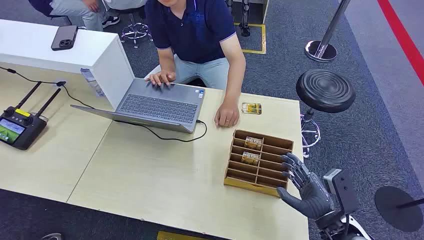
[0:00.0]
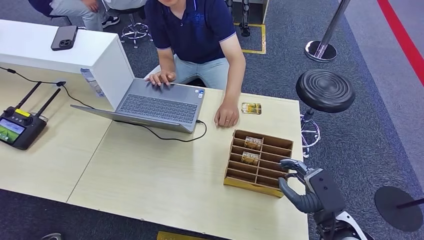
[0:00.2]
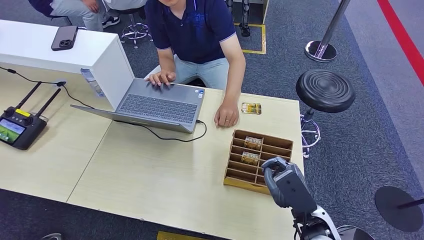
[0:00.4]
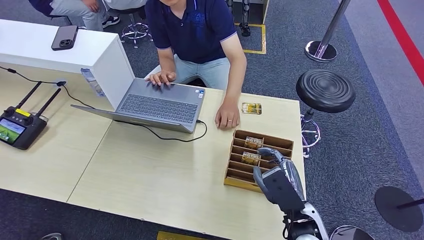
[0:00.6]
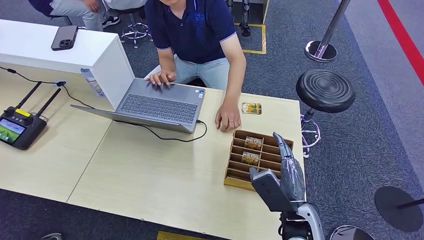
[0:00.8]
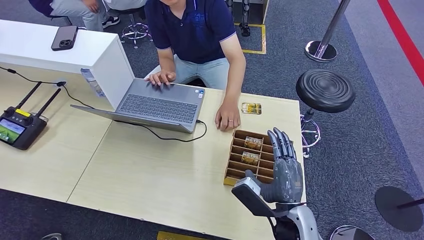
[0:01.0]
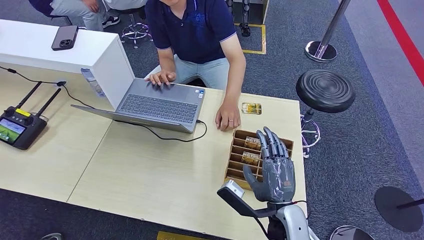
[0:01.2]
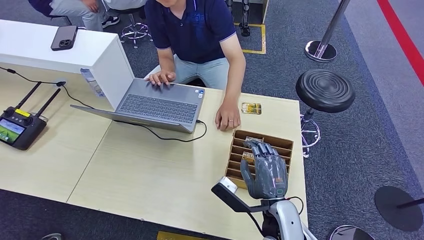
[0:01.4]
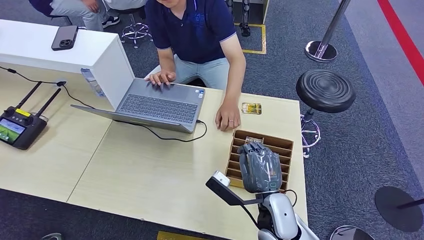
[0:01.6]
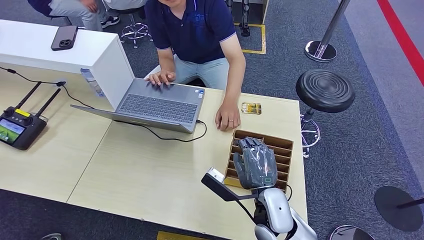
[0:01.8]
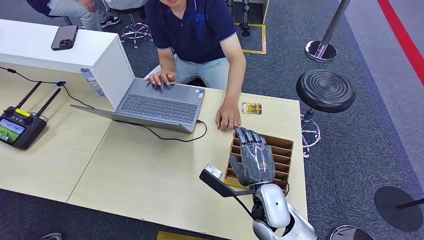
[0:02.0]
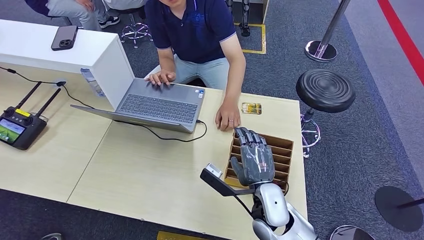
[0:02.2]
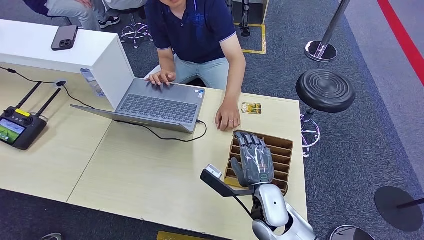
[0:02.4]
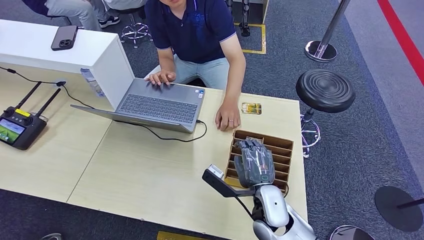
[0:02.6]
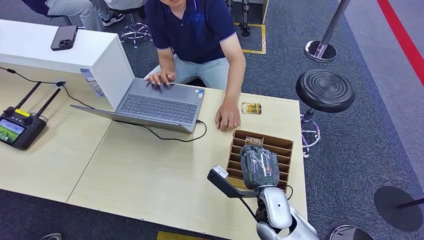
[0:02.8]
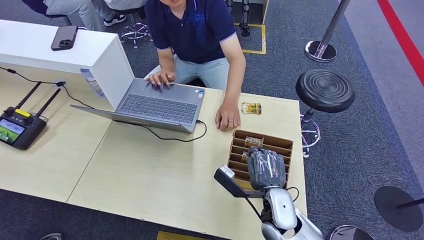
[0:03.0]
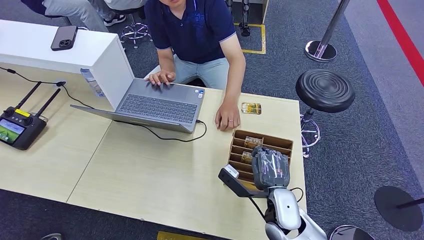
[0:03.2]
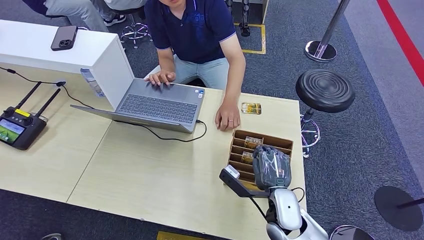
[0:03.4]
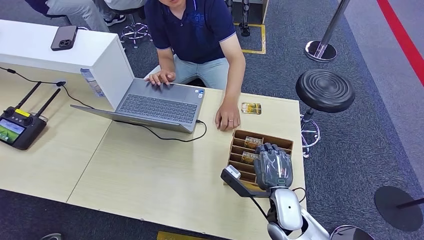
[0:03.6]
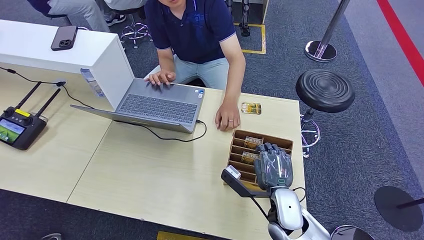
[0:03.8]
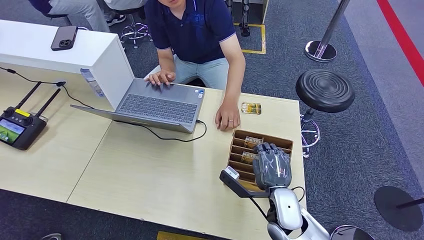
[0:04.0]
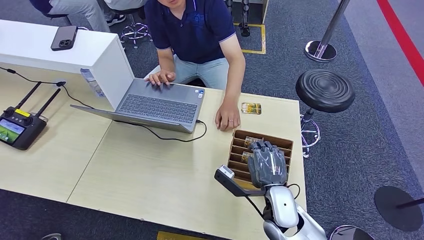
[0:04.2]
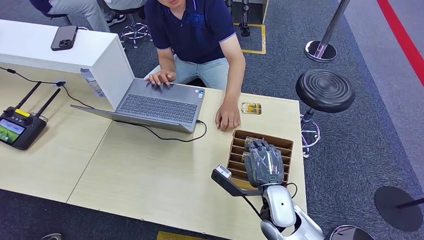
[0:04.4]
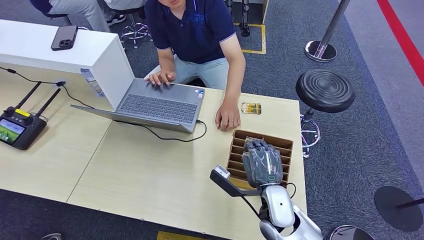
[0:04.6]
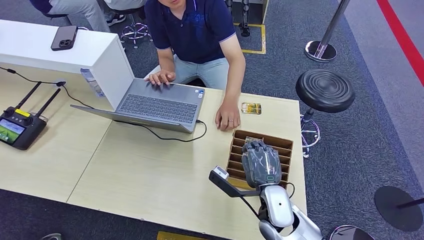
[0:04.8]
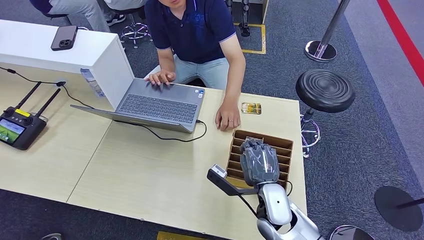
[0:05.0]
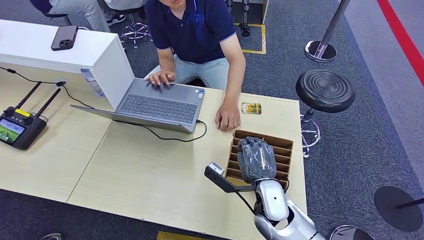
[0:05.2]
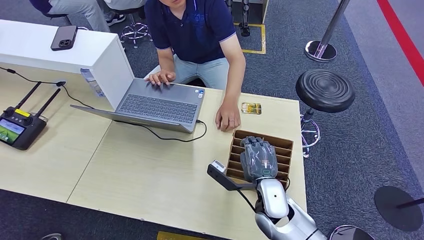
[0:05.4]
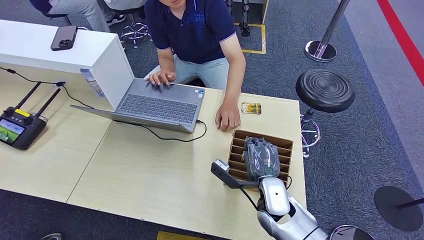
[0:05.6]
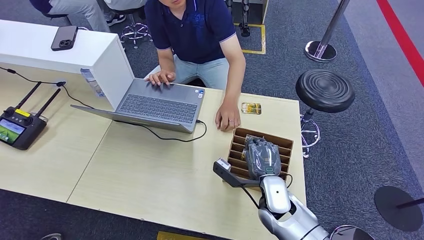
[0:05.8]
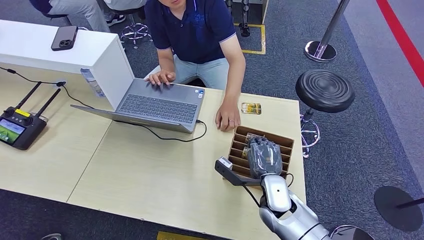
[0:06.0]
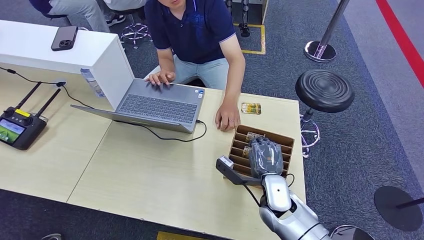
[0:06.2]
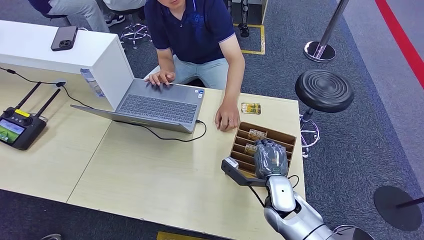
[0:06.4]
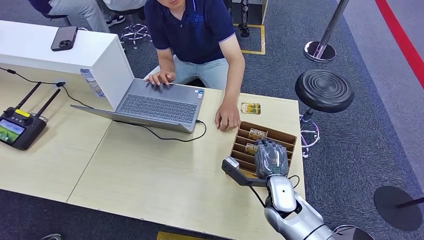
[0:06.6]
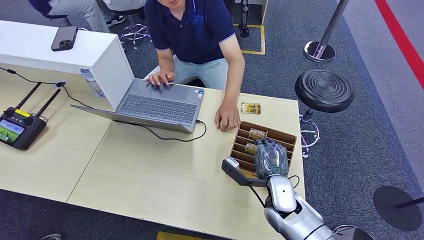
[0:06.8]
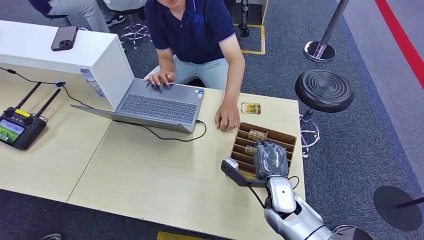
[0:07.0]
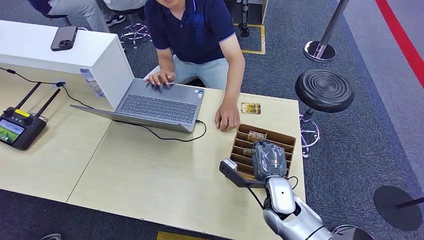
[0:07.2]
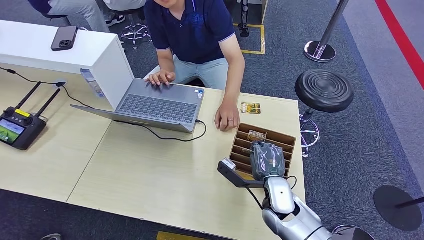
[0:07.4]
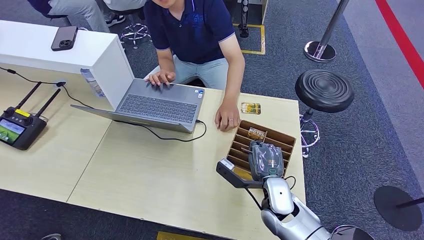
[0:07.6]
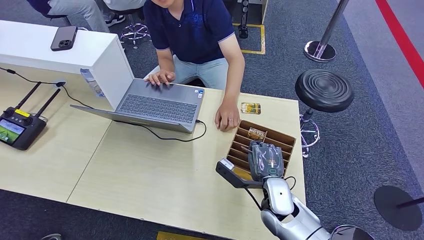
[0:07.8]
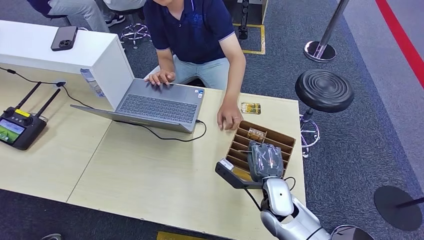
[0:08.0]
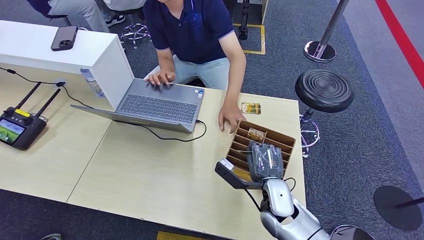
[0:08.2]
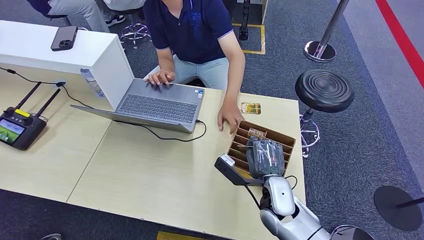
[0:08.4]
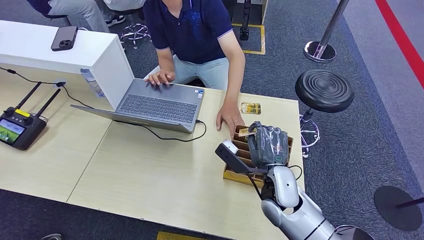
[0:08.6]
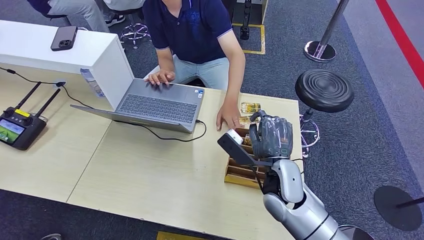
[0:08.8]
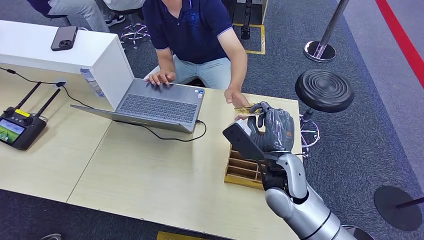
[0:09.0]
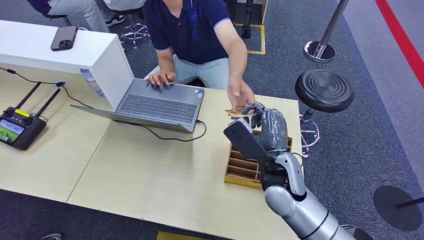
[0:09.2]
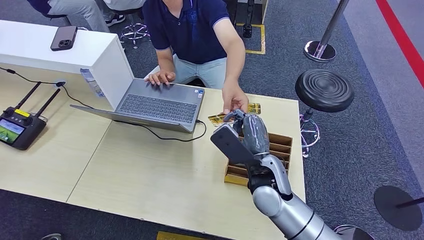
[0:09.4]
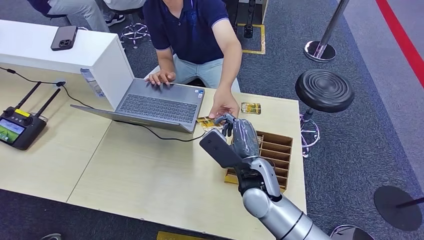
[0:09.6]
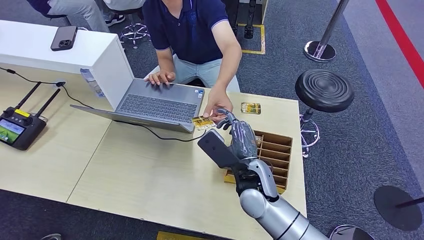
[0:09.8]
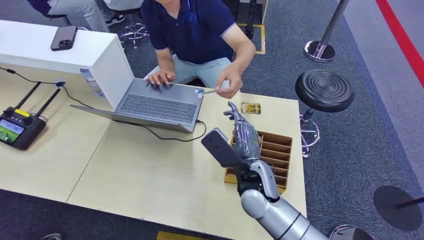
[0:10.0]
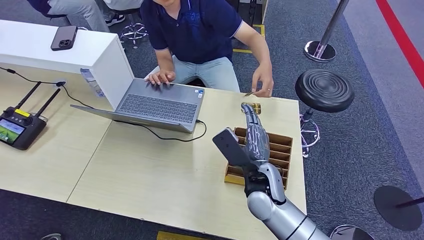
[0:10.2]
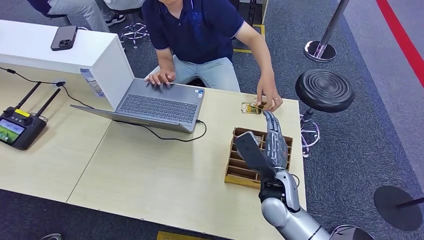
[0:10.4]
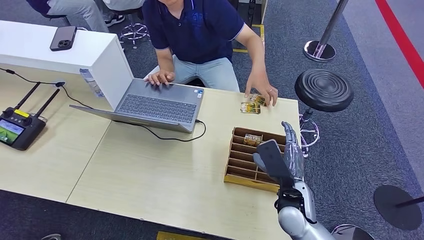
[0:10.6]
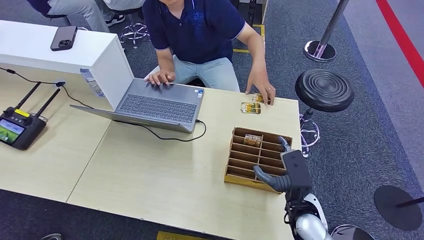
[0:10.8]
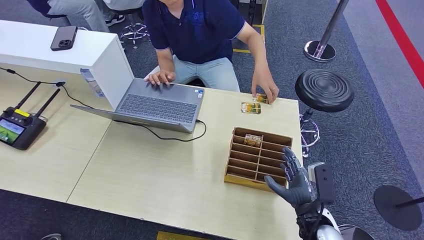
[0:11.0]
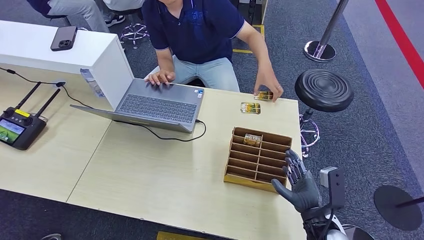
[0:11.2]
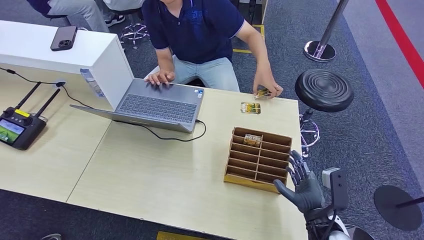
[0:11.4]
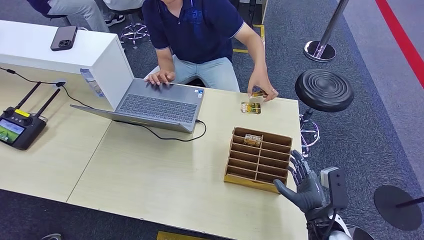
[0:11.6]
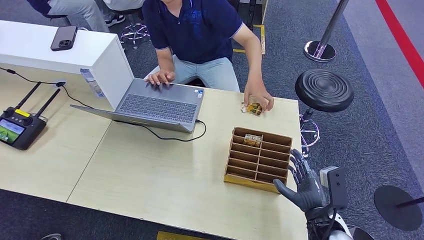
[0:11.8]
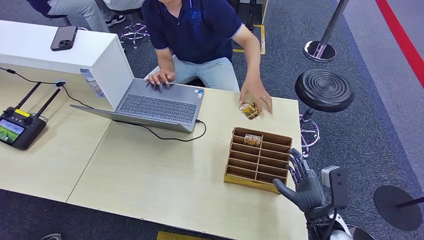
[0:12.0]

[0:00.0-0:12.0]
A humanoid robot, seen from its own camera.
Step, 0:00.0 to 0:08.4: Pick up the room card from the card holder.
Step, 0:08.6 to 0:12.0: Hand the room card to the target.
0:01.6 to 0:03.0: The right hand heads to the right, covering approximately 5 cm.
0:03.0 to 0:04.4: There are only small adjustments of the hands.
0:04.4 to 0:06.0: The right hand moves roughly 5 cm.
0:06.0 to 0:07.6: The hands move only a little.
0:07.6 to 0:09.0: The right hand goes some 10 cm upward.
0:09.0 to 0:10.4: The right hand heads to the right and downward, covering roughly 10 cm.
0:10.4 to 0:12.0: The right hand travels backward by approximately 5 cm.
